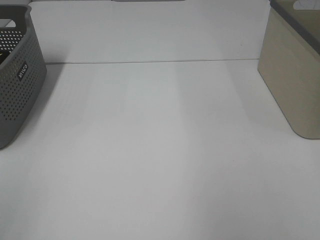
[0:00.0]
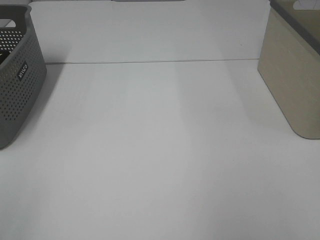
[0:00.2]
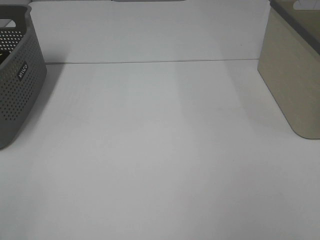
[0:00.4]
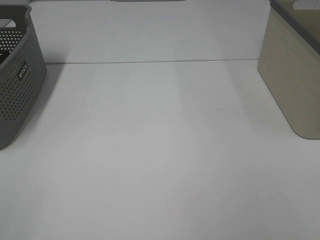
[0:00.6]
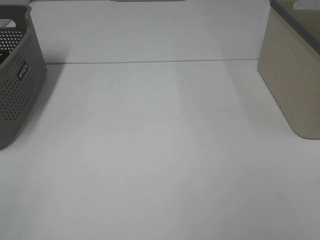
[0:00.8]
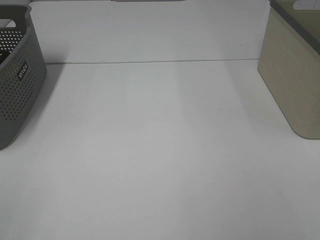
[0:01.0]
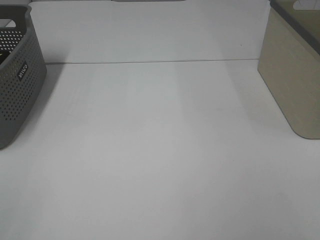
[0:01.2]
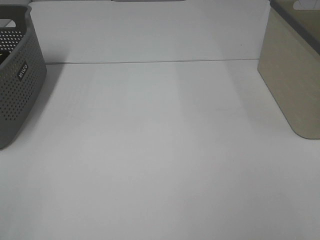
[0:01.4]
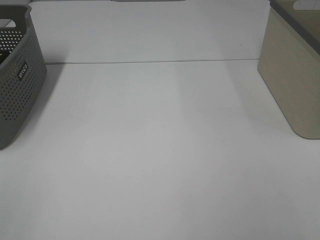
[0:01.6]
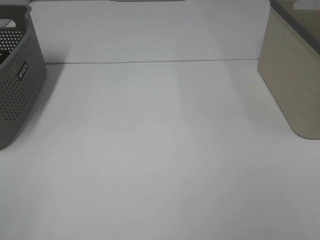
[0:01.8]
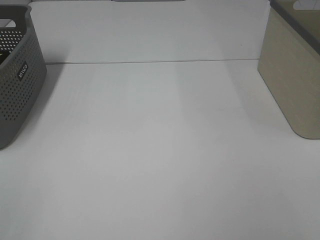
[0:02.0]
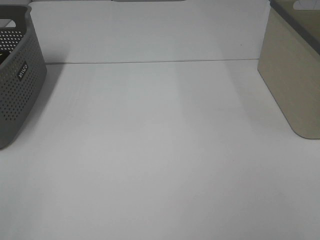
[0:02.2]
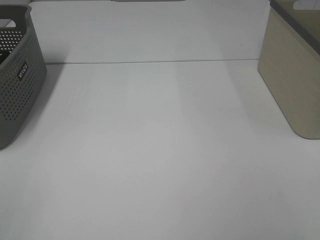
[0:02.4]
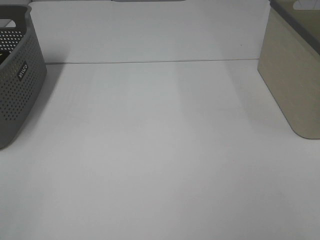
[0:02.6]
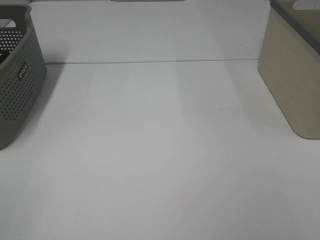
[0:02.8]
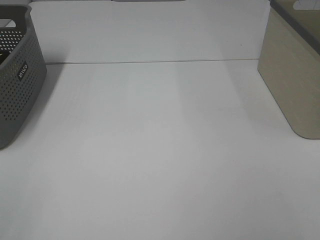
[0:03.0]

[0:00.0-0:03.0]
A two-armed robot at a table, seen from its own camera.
1.6 to 3.0 s: Both grippers stay put.

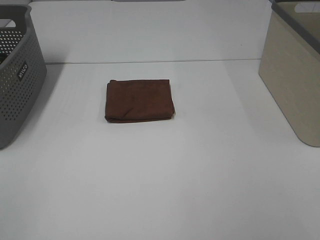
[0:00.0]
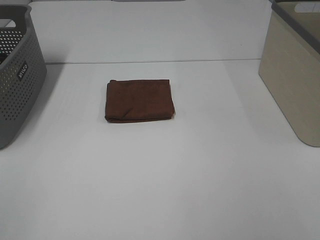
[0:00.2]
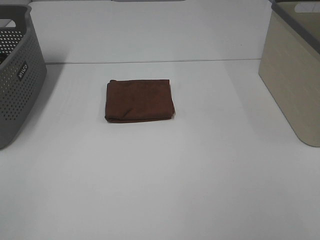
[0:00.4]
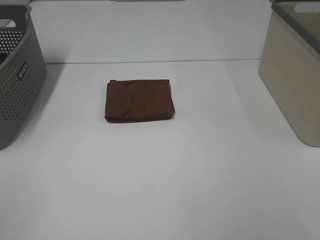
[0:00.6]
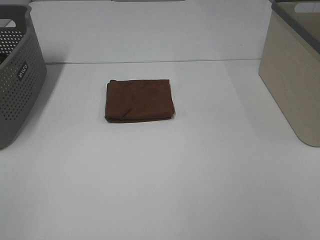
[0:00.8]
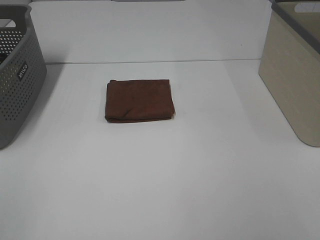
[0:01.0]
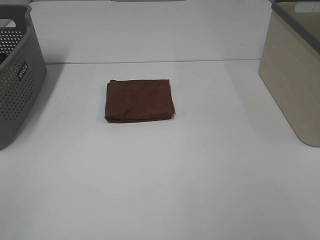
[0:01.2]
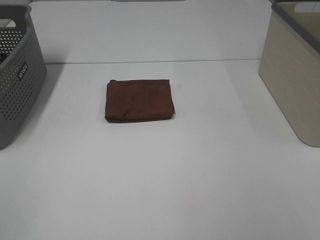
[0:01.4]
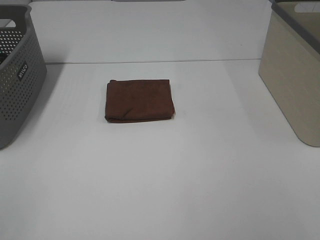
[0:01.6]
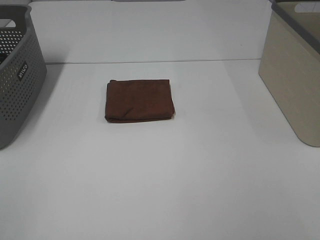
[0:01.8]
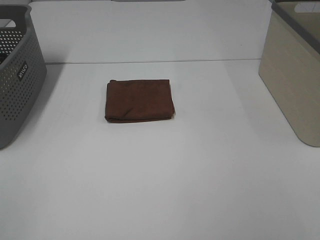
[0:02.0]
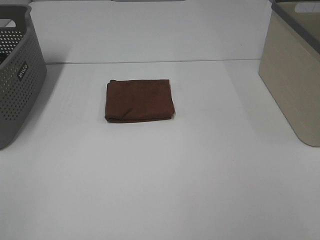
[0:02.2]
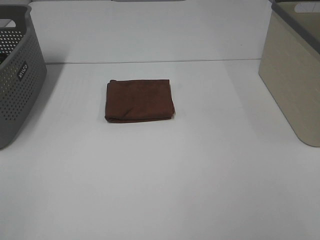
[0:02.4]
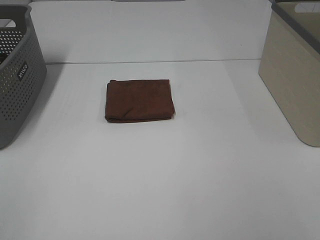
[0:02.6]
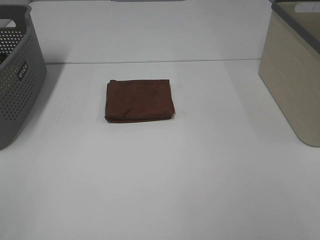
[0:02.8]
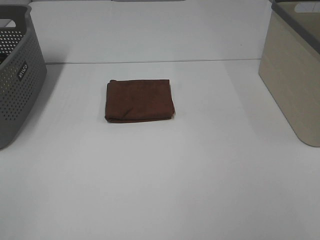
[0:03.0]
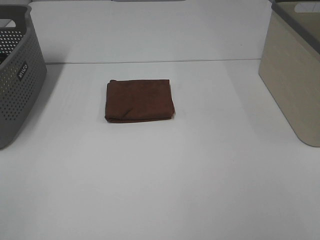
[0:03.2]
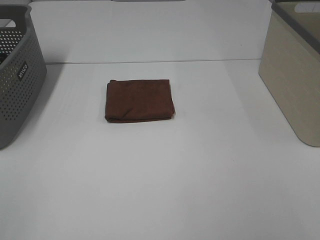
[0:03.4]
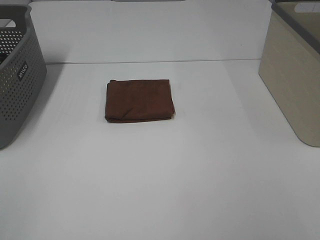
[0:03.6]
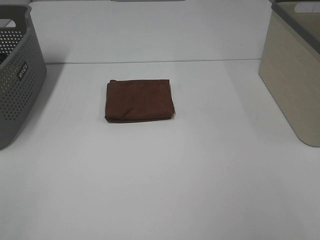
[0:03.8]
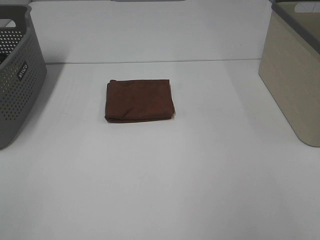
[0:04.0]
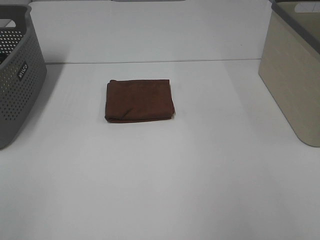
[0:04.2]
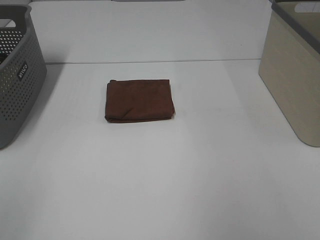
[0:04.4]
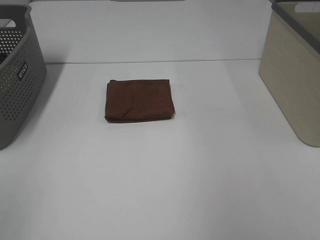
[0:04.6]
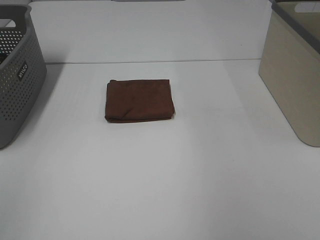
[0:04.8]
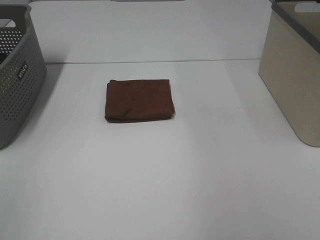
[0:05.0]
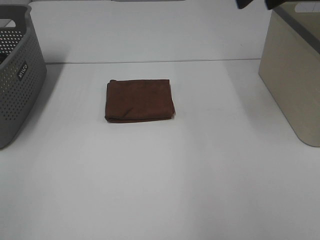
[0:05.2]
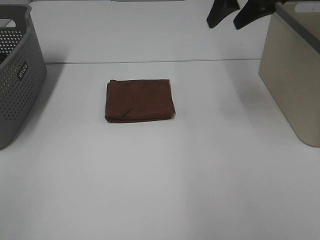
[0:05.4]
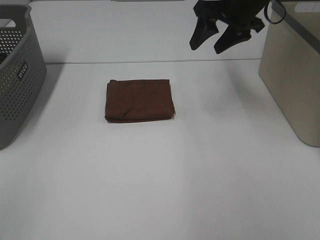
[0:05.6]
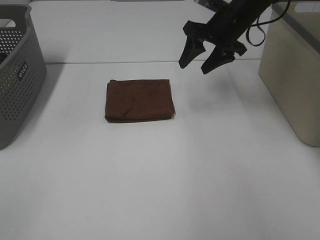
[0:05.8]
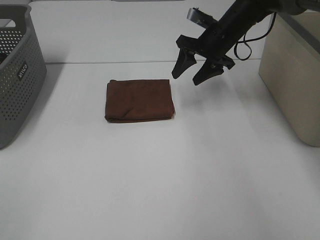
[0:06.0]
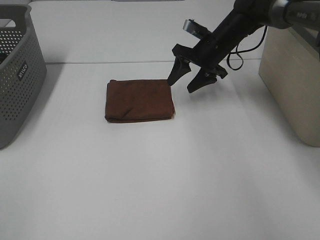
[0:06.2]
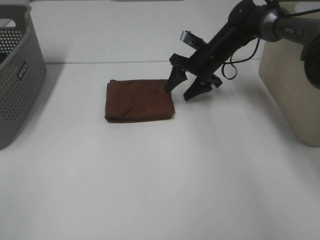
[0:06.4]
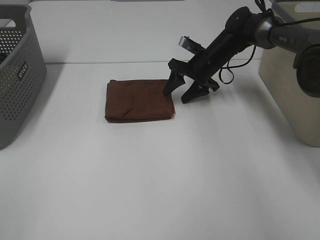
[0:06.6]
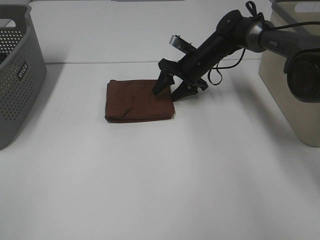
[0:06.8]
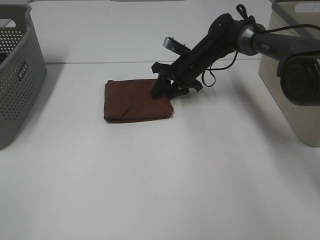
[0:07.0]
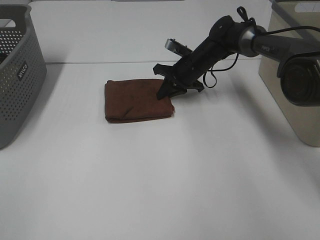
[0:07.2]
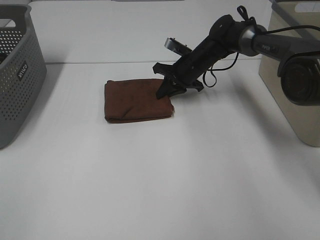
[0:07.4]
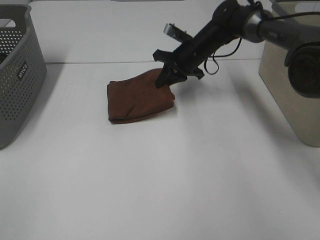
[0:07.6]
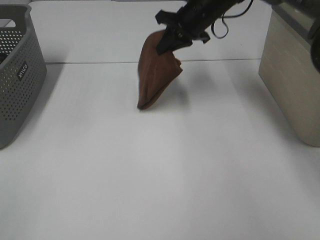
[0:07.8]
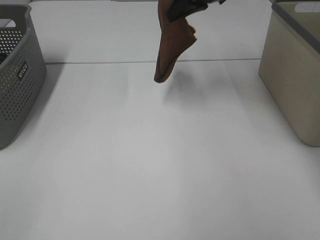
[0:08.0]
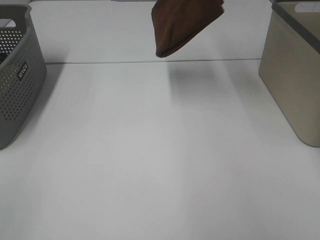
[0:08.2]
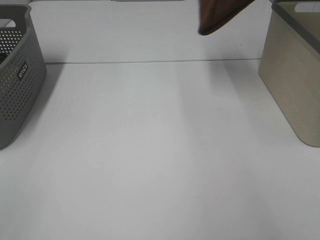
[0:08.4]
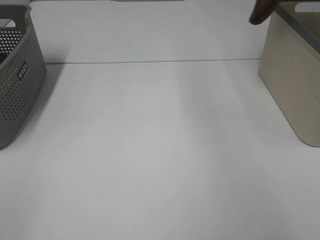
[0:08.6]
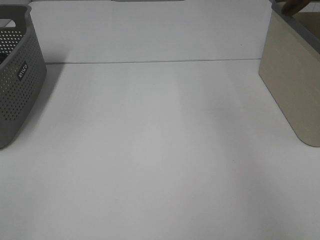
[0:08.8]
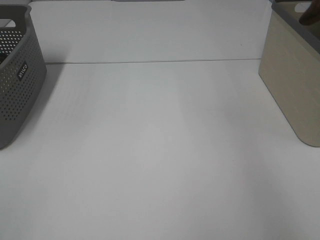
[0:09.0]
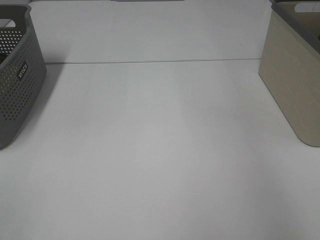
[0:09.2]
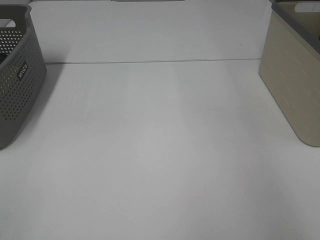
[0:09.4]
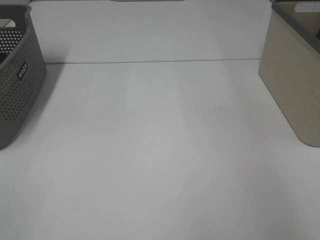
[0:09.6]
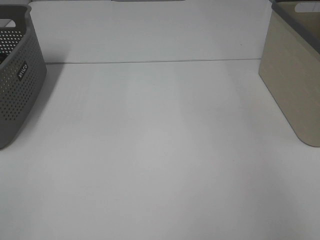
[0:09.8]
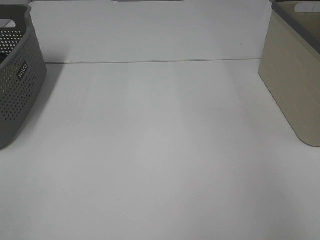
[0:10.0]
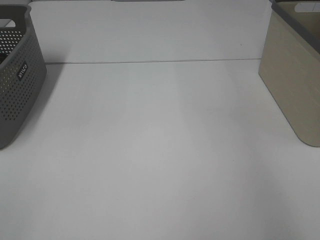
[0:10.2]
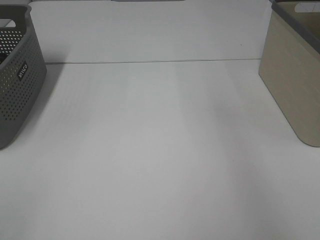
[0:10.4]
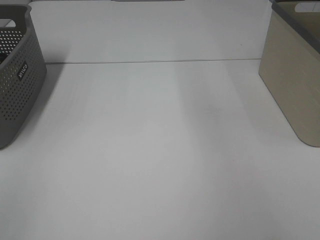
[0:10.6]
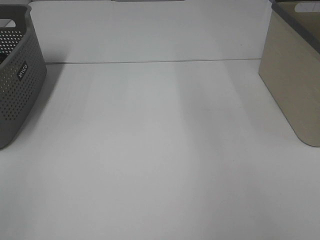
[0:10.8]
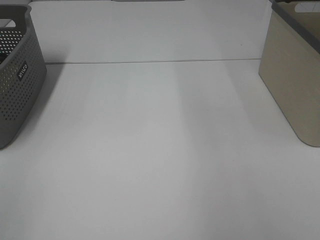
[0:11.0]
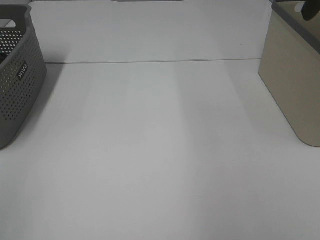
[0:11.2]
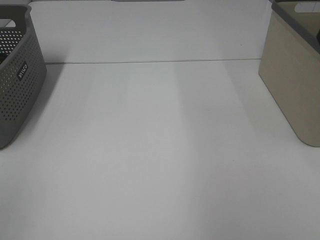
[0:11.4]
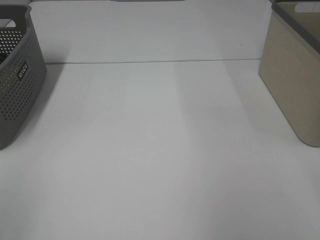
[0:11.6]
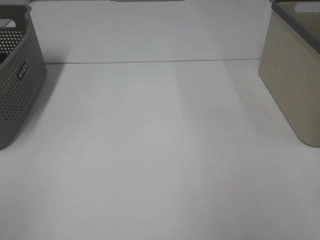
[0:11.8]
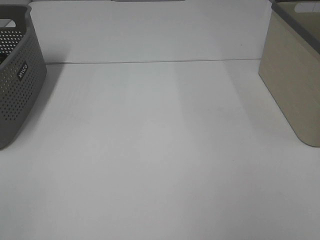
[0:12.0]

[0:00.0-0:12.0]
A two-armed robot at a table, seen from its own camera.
Step, 0.0 to 7.4 s: Right hand: grab the folded brown towel.
Step, 7.6 to 10.0 s: Right hand: place the brown towel in right basket.
0.0 to 3.0 s: Neither gripper changes place.
4.4 to 6.0 s: The right gripper heads forward, downward and to the left, covering some 40 cm.
6.0 to 7.6 s: The right gripper moves approximately 10 cm downward and comes back, and closes up.
7.6 to 9.0 s: The right gripper moves to the right and upward, approximately 40 cm.

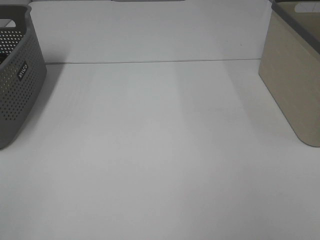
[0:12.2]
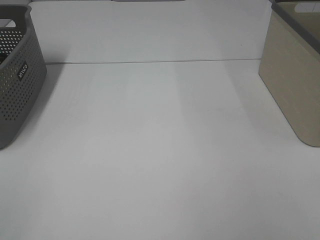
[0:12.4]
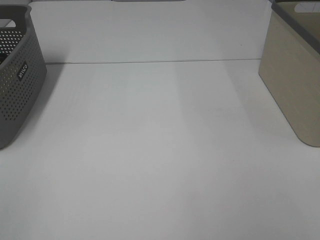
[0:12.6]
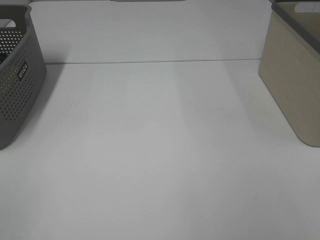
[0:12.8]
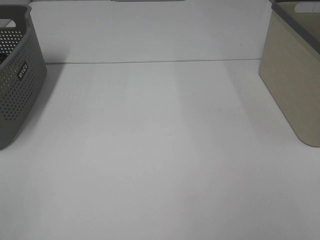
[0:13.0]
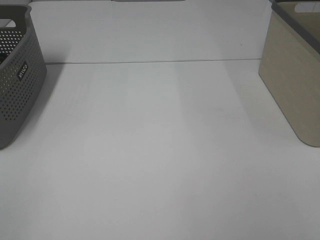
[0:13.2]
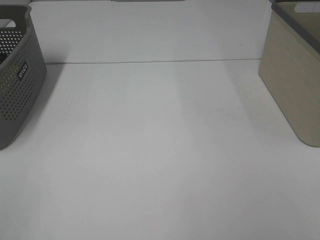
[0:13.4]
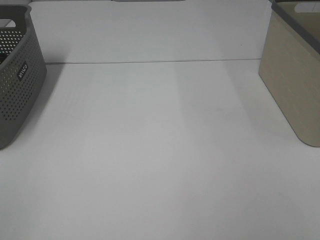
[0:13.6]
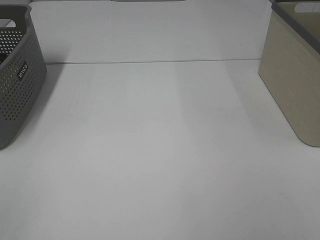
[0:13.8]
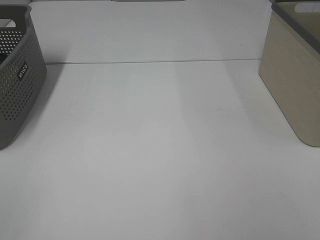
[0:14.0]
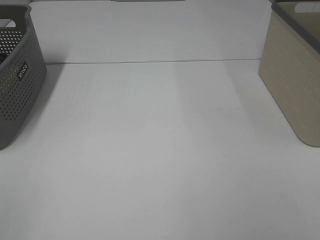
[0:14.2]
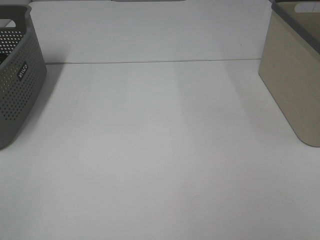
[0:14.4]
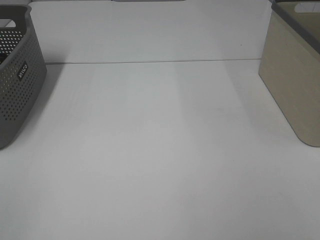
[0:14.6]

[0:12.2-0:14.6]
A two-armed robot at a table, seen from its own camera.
13.4 to 14.6 s: Both grippers stay put.

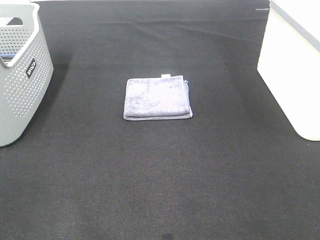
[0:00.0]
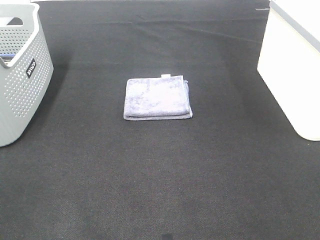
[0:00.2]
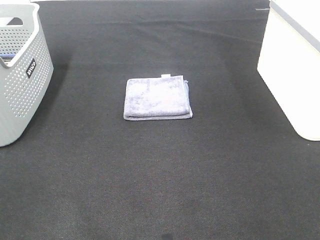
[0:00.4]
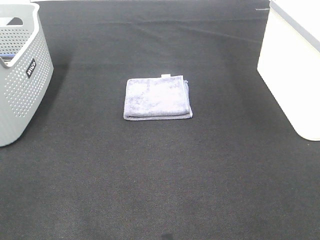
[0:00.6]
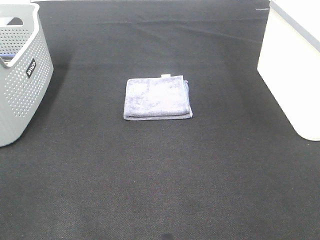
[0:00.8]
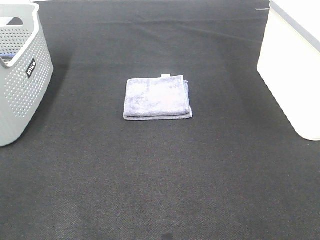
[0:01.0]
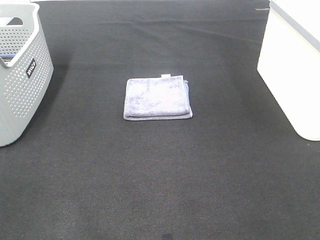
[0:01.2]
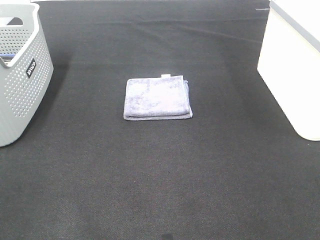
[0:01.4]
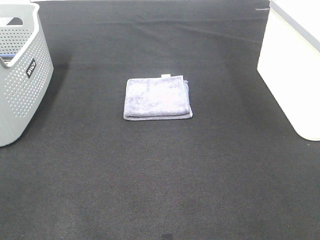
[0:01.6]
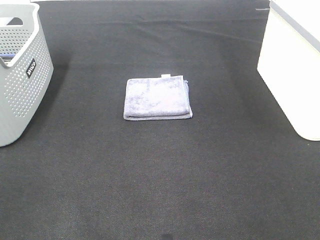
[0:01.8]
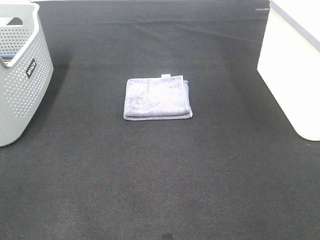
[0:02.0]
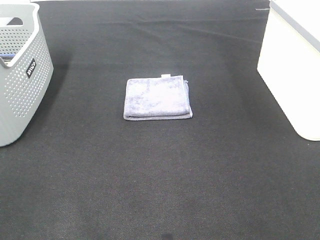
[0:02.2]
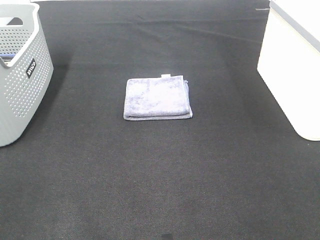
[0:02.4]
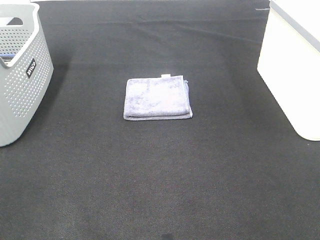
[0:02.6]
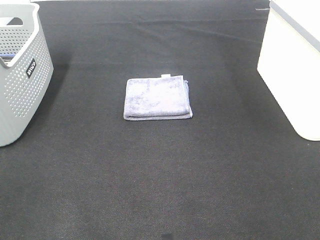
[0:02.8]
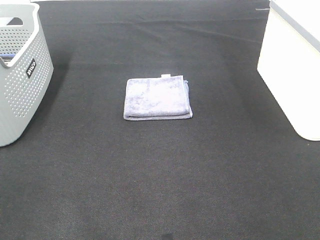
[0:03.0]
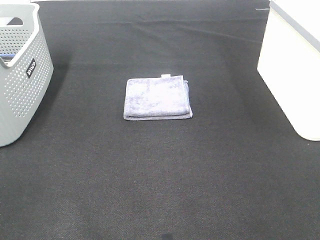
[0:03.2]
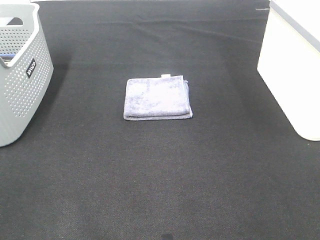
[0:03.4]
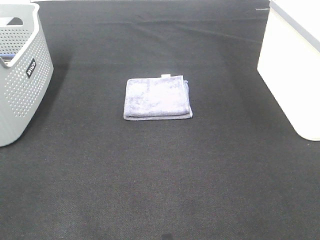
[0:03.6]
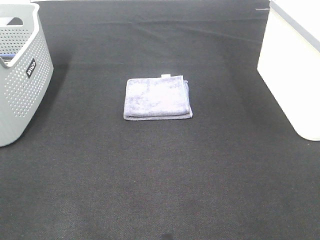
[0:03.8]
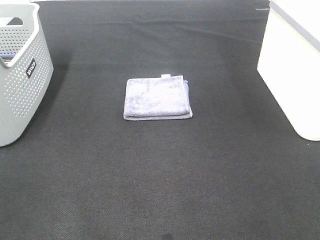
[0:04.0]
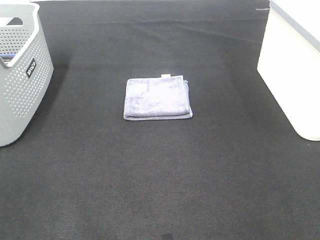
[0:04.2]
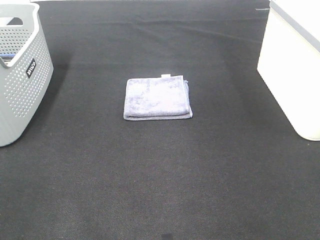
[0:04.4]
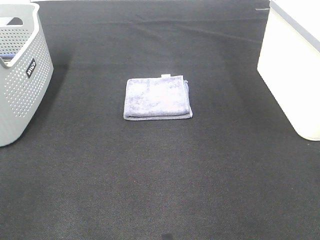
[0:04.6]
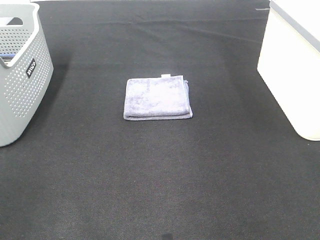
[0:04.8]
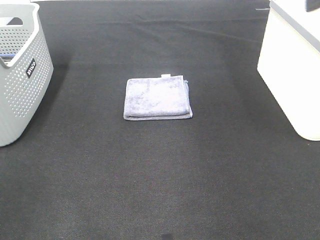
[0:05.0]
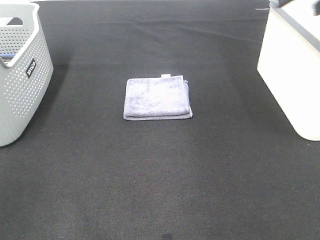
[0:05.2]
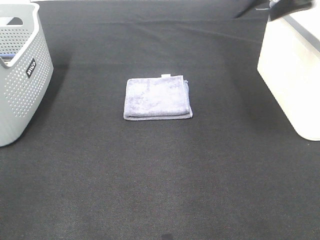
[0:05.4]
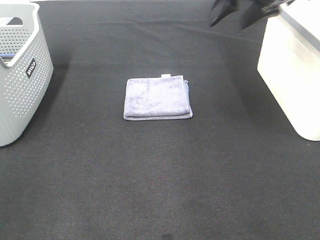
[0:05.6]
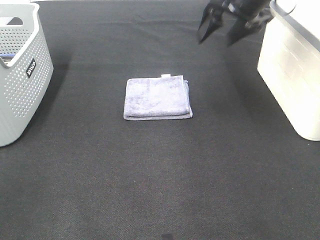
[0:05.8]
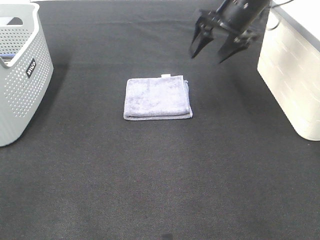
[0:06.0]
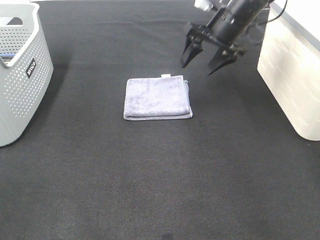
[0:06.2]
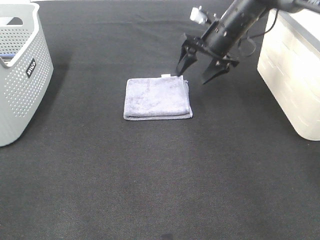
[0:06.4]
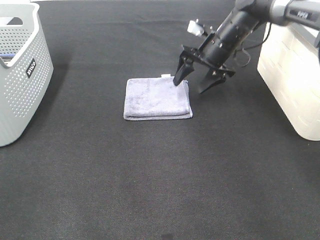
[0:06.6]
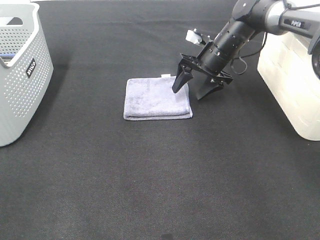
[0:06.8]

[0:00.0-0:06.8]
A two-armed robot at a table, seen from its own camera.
0.0 to 2.8 s: Both grippers stay about where they are.
4.0 to 5.4 s: The right gripper moves forward, about 35 cm.
5.4 to 6.8 s: The right gripper shifts some 25 cm downward and forward.
